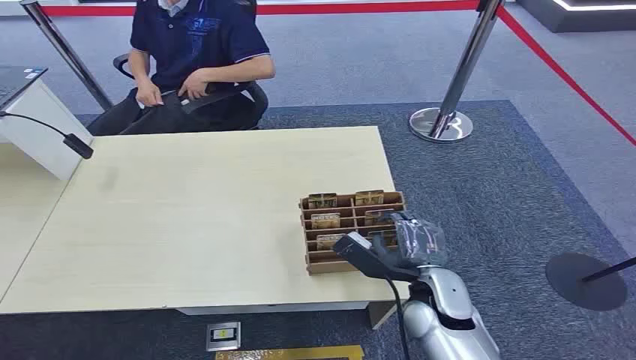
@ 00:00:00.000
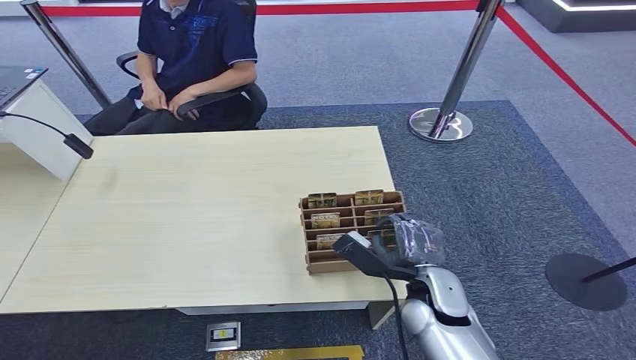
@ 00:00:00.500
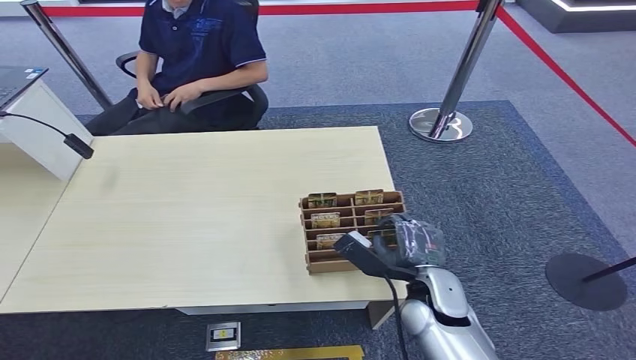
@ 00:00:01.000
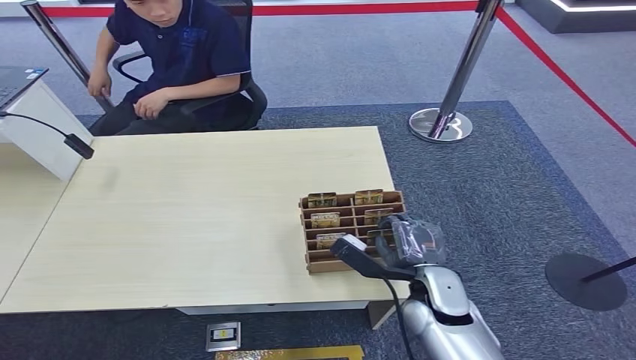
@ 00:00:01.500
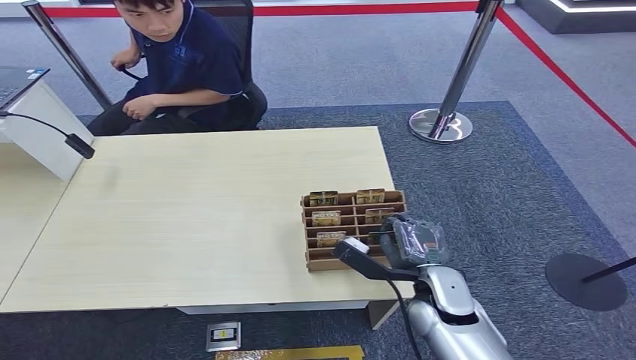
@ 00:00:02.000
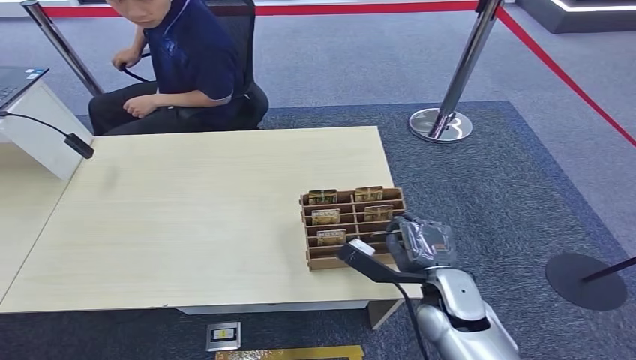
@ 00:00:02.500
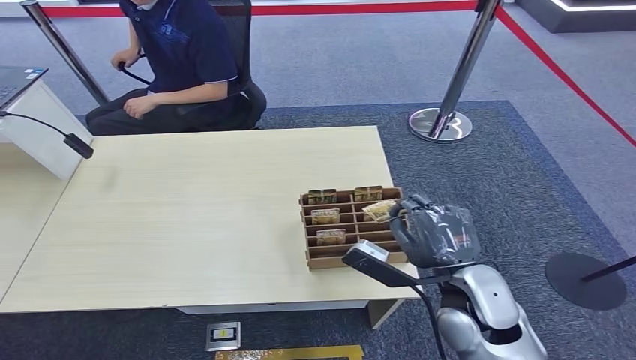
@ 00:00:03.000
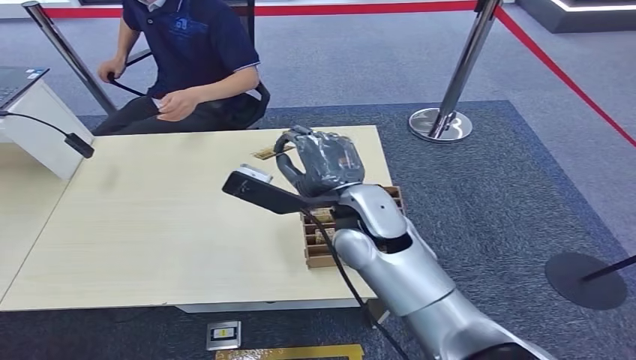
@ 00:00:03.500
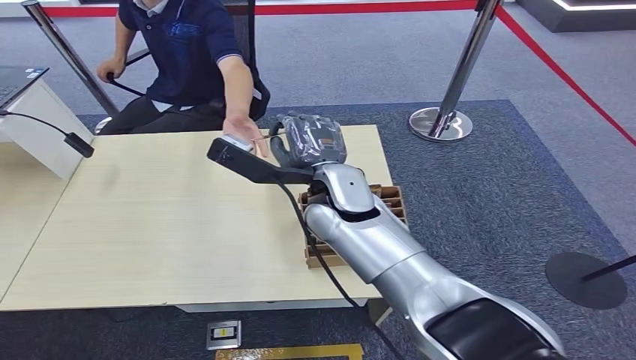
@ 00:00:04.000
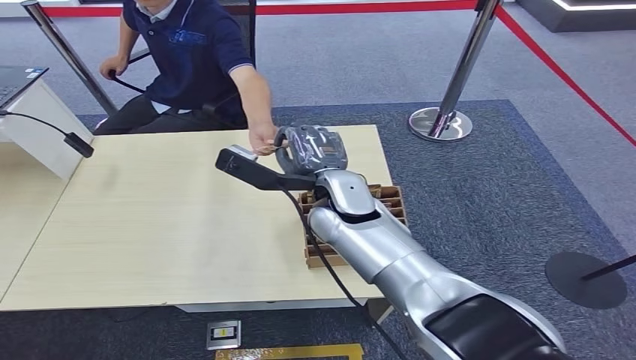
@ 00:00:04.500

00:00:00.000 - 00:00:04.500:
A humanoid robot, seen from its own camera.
Step, 00:00:00.000 - 00:00:02.500: Pick up the room card from the card holder.
Step, 00:00:03.000 - 00:00:04.500: Hand the room card to the target.
00:00:02.000 - 00:00:04.500: The right hand moves upward, to the left and forward, about 25 cm.
